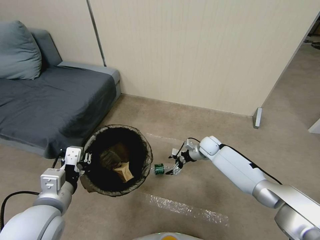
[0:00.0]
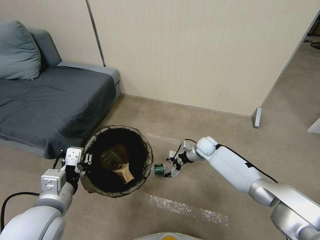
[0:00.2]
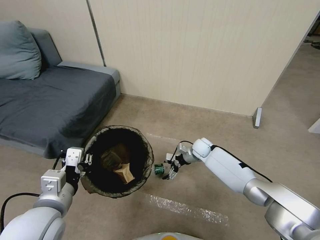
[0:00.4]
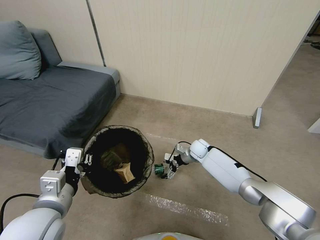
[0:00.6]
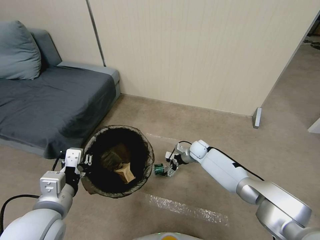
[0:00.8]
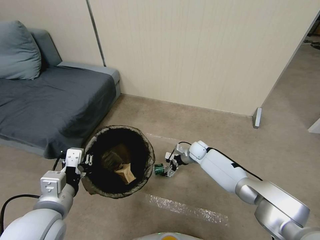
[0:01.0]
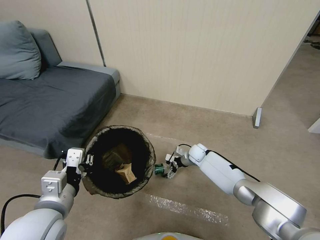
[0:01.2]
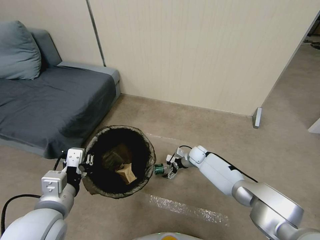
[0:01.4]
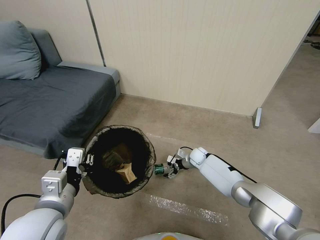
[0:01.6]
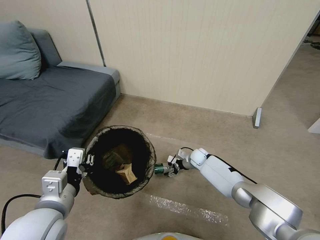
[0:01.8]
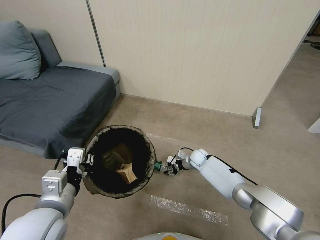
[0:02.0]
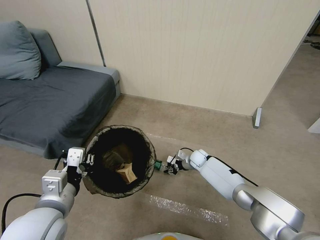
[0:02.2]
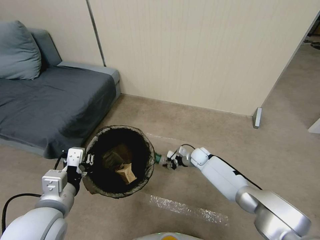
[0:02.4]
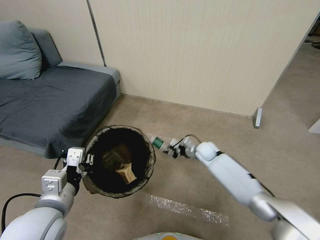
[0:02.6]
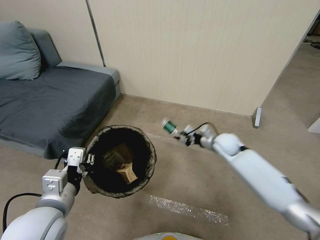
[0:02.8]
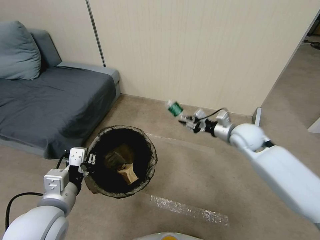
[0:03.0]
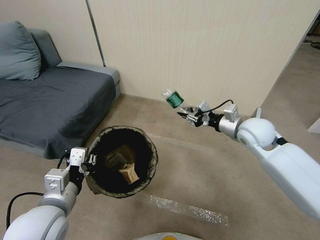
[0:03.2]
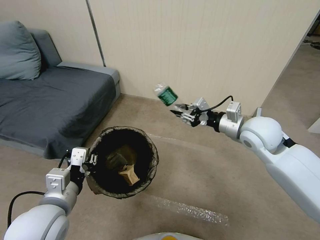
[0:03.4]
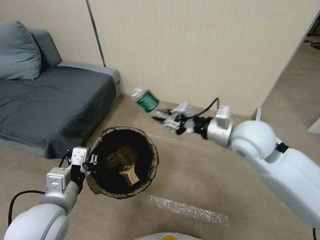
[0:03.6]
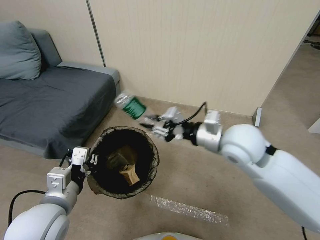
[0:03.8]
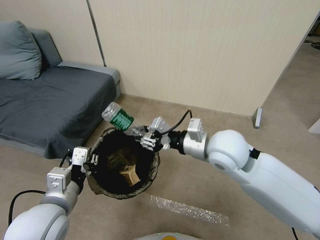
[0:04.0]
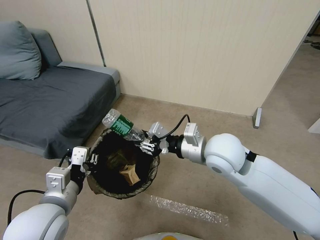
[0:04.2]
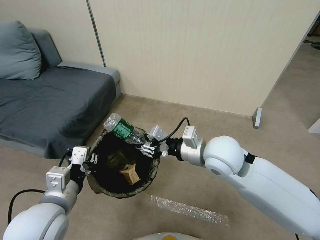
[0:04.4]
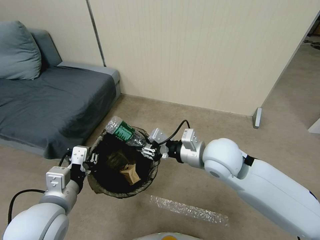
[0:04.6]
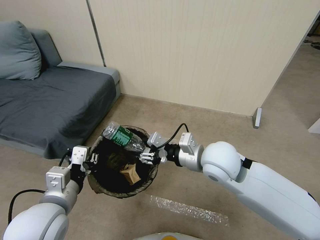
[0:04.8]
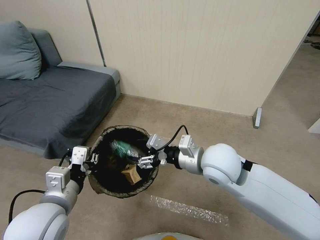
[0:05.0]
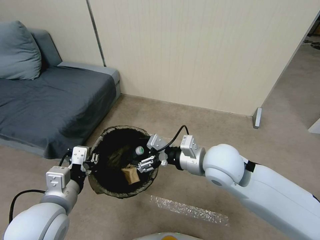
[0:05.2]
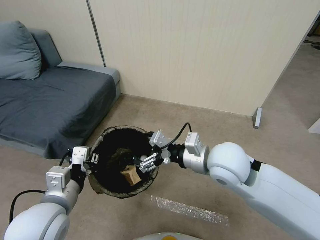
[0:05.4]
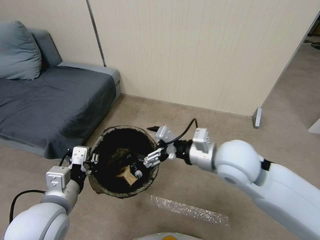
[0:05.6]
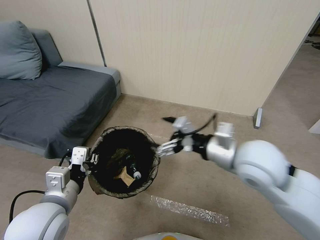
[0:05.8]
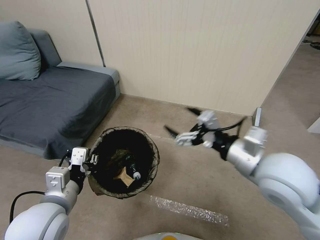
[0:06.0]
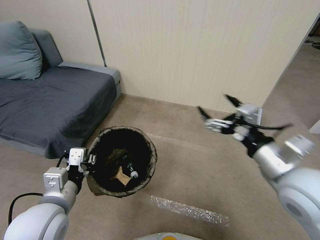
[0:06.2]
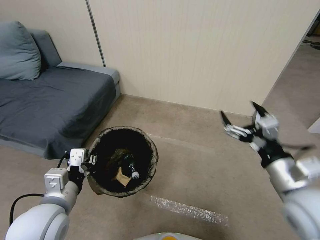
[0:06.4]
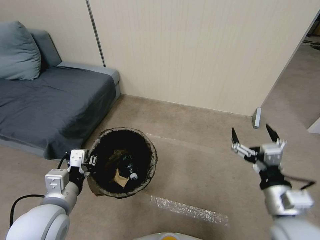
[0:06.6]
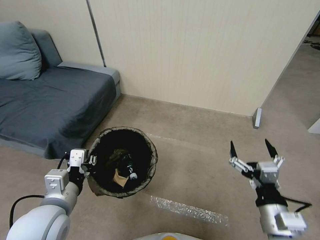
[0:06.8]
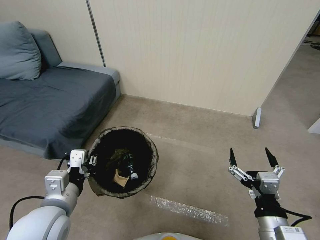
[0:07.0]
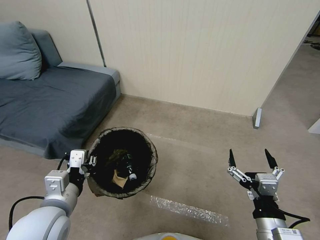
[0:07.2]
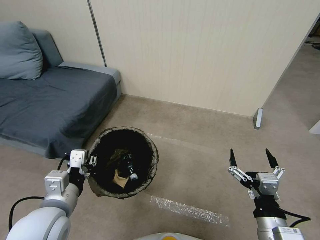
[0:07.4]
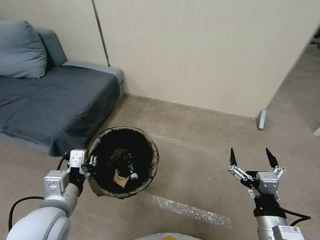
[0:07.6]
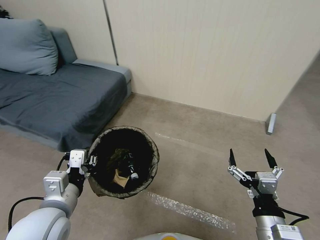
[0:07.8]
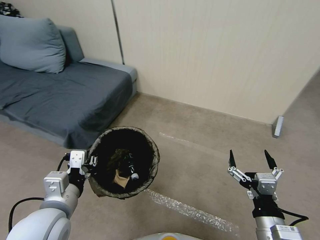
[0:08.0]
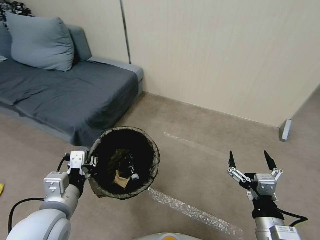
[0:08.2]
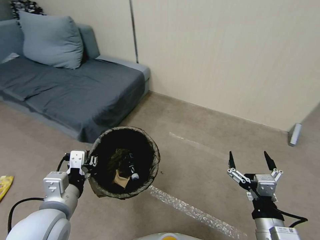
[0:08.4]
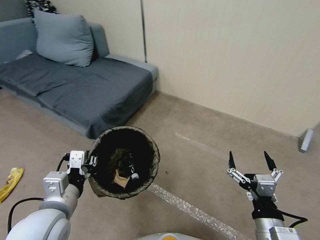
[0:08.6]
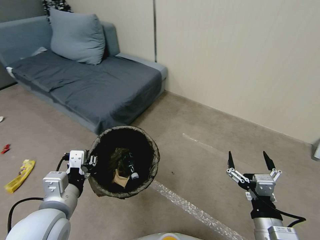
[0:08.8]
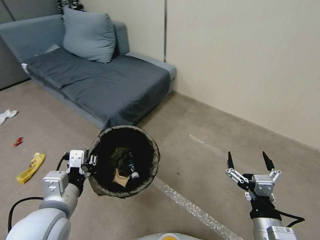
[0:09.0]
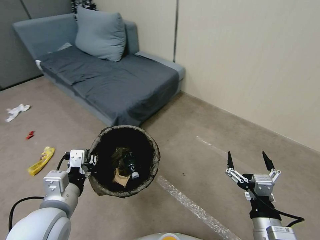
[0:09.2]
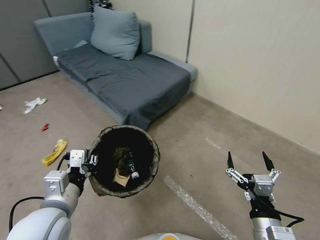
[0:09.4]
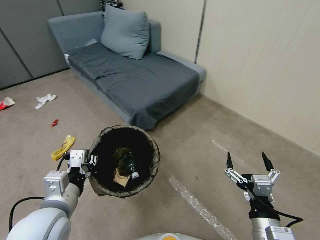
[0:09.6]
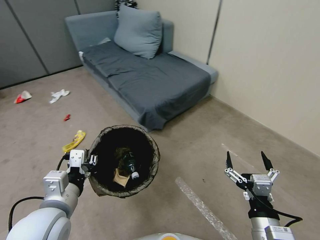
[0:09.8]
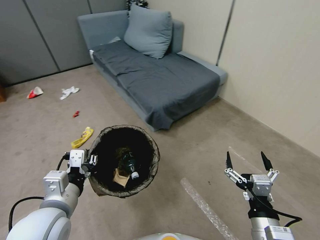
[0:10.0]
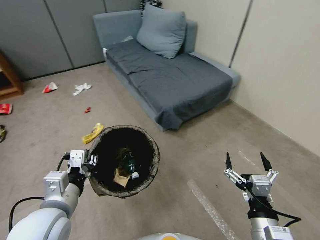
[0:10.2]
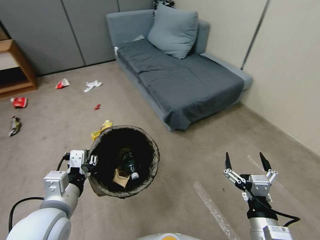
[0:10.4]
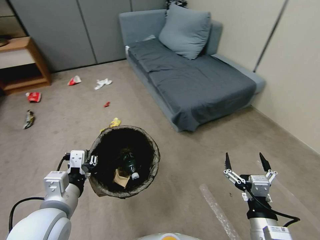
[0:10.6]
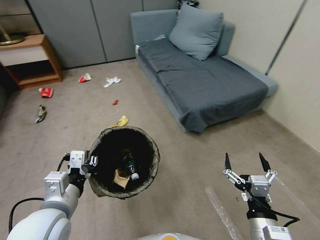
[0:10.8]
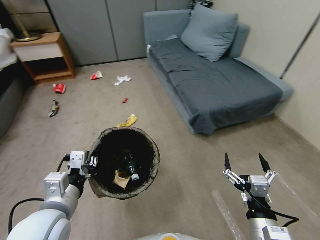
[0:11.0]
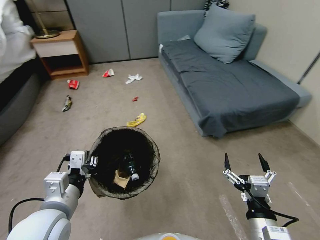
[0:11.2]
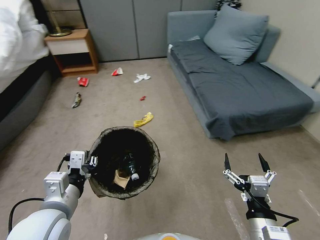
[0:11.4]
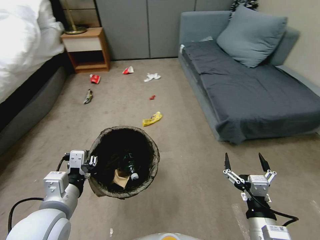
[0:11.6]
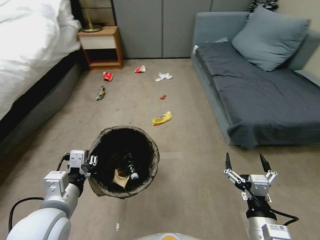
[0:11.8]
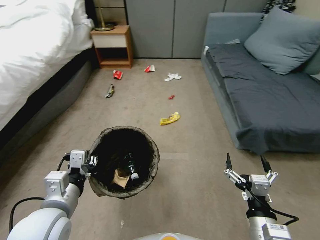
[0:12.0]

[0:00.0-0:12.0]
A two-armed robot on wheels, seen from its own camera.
Task of the whole recording: Pick up the trash bin, then pick up the garbage from the floor and place it into the trash bin.
0:00.0 to 0:01.6: The right gripper moves downward, about 10 cm.
0:01.6 to 0:03.0: The right gripper is displaced upward and to the right by roughly 25 cm, and closes.
0:03.0 to 0:04.4: The right gripper goes about 20 cm to the left, backward and upward.
0:04.4 to 0:06.0: The right gripper shifts roughly 10 cm to the right and backward, and opens up.
0:06.0 to 0:07.6: The right gripper shifts roughly 20 cm downward and backward.

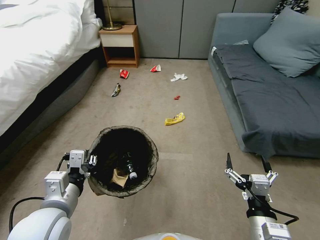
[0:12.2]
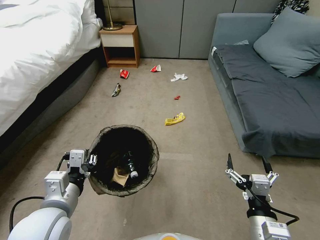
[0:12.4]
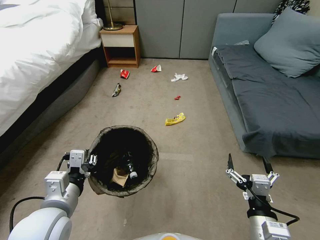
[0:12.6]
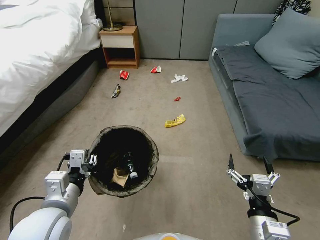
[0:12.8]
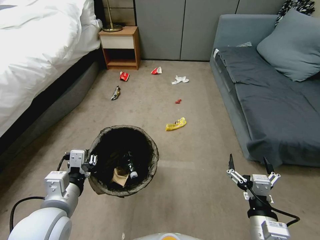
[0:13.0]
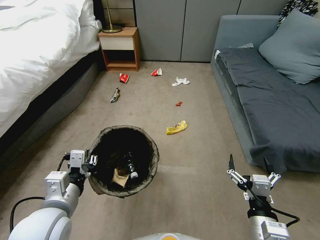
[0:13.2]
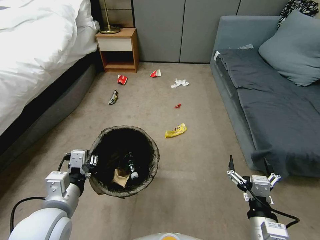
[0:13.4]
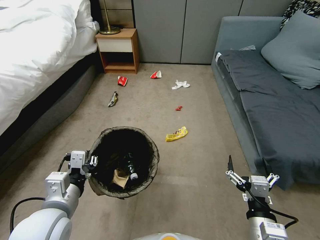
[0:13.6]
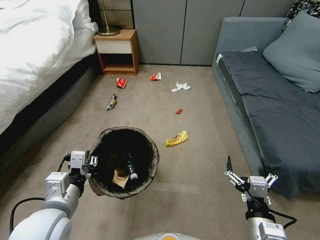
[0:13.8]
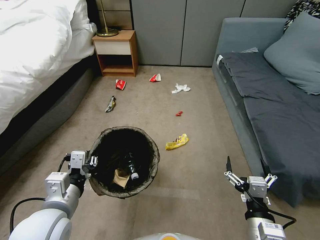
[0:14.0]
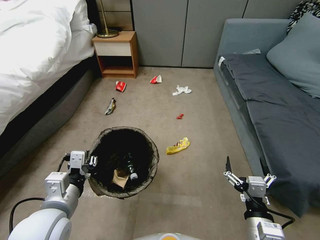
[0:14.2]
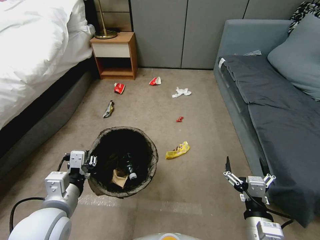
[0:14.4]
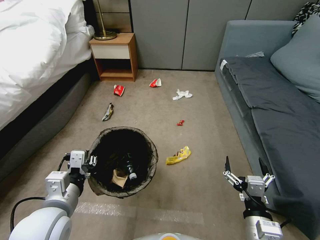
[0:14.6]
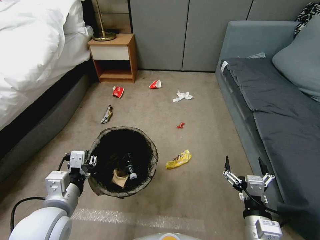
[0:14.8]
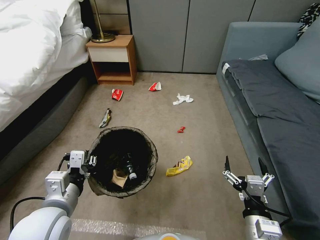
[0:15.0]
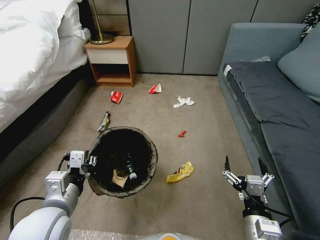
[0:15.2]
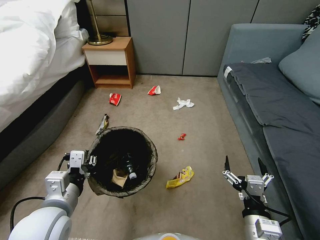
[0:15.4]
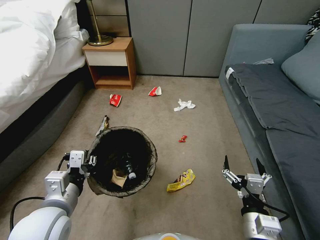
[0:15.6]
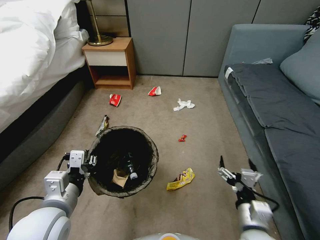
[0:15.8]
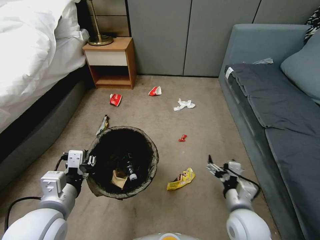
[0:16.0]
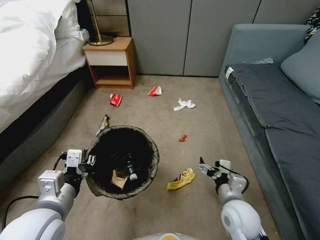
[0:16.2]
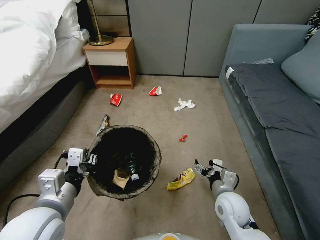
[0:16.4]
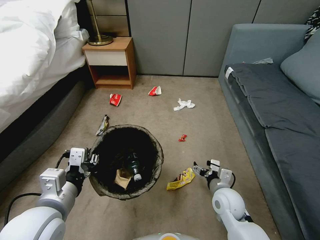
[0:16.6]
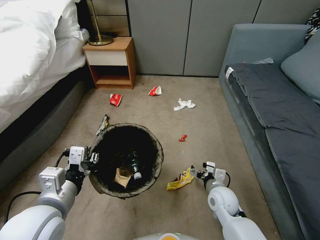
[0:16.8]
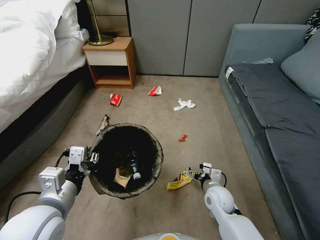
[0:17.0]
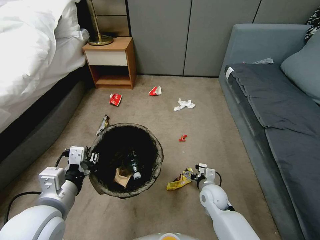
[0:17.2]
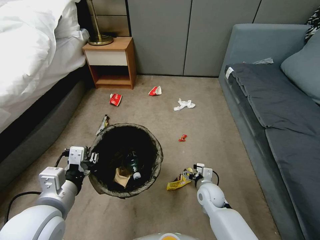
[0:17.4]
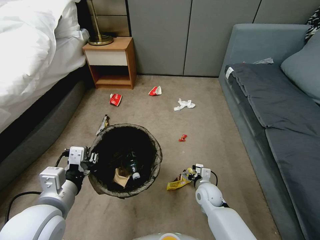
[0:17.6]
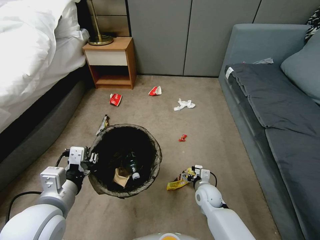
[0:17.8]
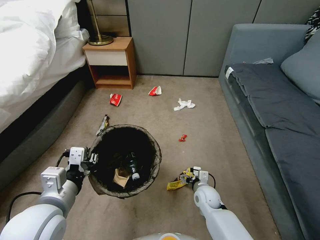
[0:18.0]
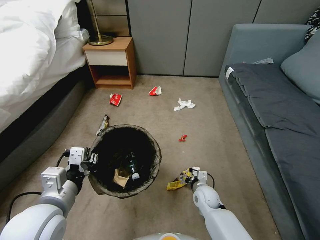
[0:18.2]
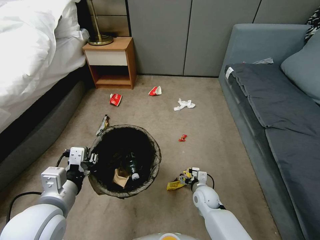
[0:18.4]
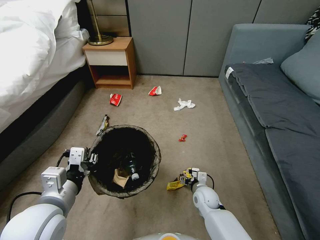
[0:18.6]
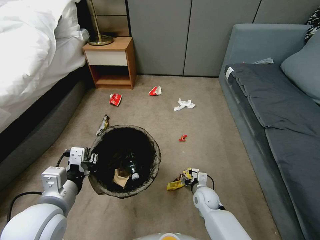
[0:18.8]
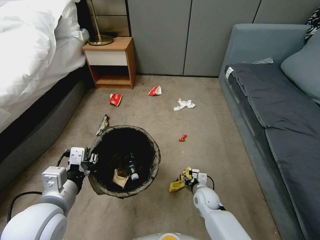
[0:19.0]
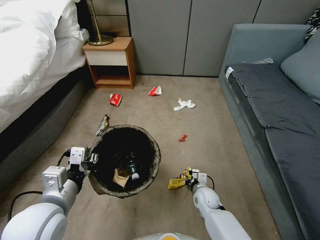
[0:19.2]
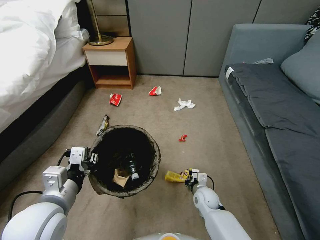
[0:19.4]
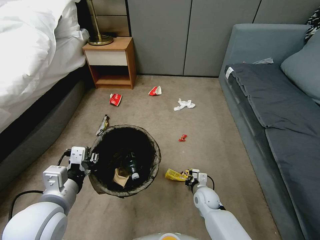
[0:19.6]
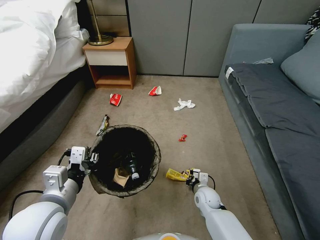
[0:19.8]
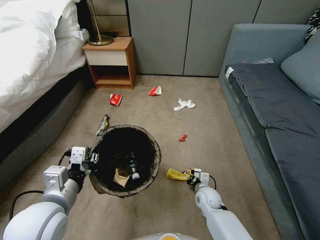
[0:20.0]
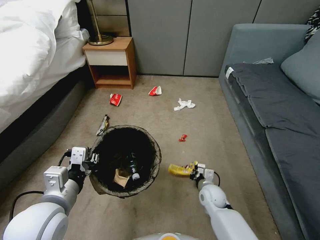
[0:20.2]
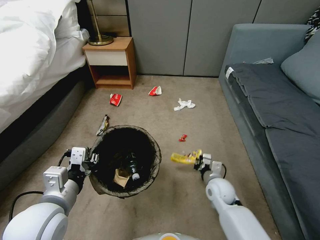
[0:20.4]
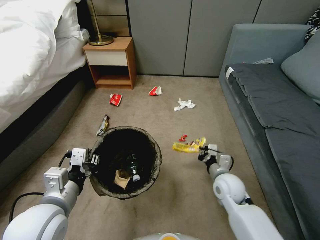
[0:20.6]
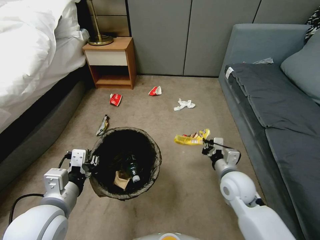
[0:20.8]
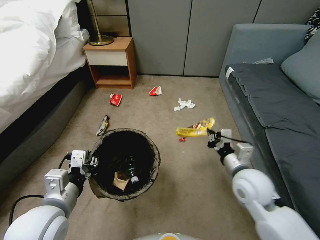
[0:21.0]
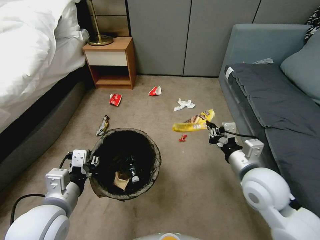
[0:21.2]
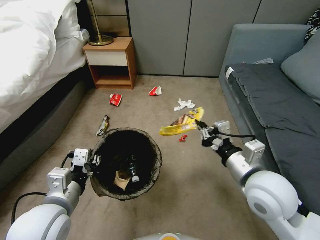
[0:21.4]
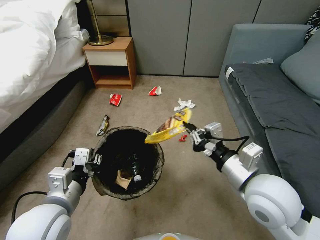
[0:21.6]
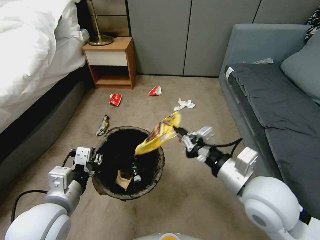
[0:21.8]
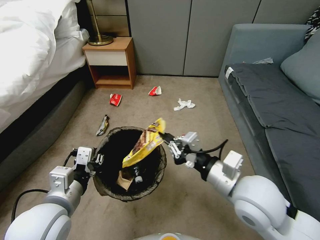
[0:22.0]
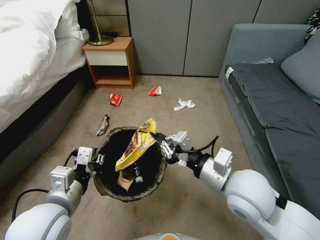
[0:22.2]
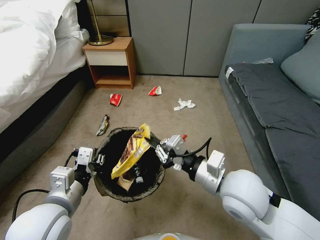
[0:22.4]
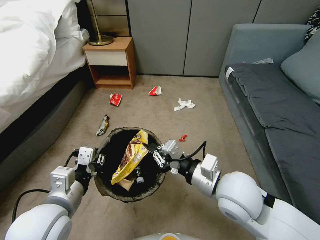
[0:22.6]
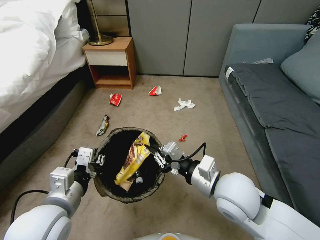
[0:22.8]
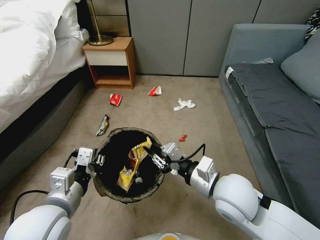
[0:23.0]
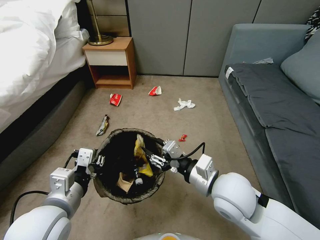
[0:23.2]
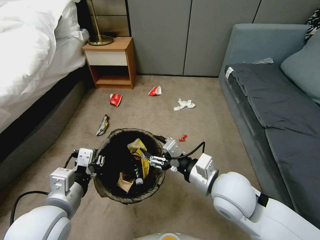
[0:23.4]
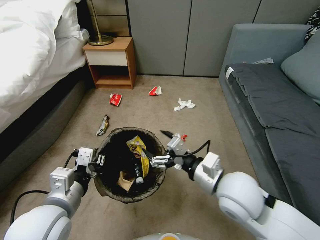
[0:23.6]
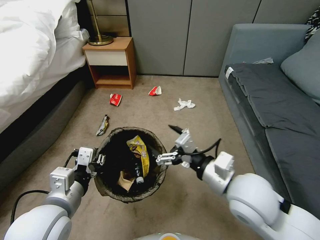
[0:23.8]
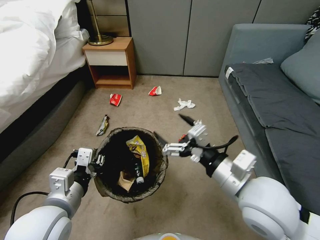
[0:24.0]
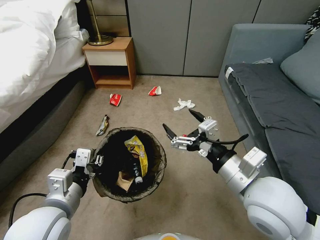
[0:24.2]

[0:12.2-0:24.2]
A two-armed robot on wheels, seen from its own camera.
Task of the whole recording: Pick up the trash bin, then pick up the garbage from the floor and place it into the trash bin.
0:15.2 to 0:16.6: The right gripper moves forward and downward, about 15 cm.
0:16.6 to 0:18.2: The right gripper is displaced downward by roughly 10 cm.
0:18.2 to 0:19.8: The right gripper closes.
0:19.8 to 0:21.2: The right gripper is displaced upward by about 30 cm.
0:21.2 to 0:22.6: The right gripper heads to the left, covering about 10 cm.
0:22.6 to 0:24.2: The right gripper moves some 5 cm, and opens its fingers.
